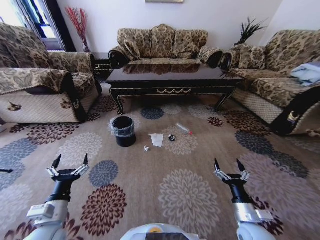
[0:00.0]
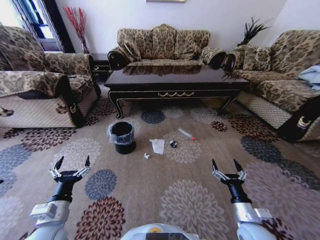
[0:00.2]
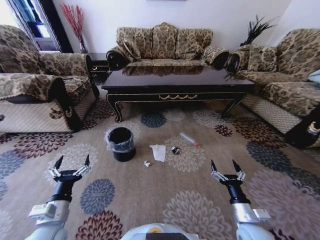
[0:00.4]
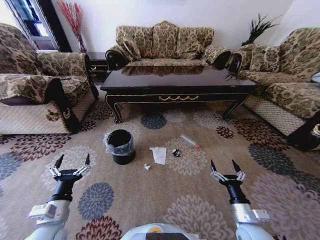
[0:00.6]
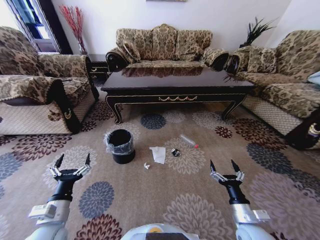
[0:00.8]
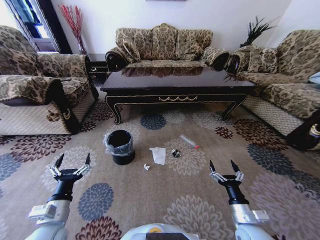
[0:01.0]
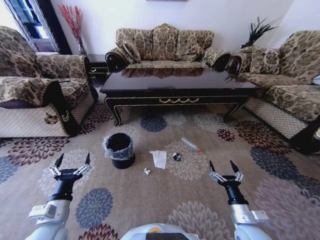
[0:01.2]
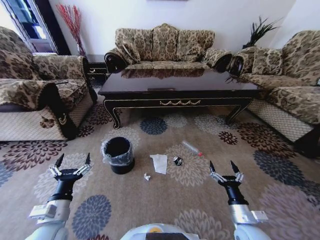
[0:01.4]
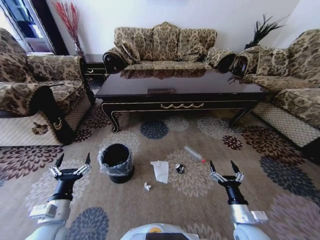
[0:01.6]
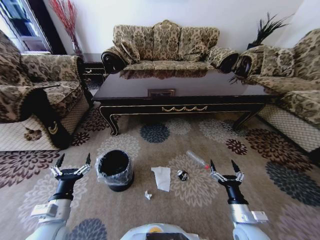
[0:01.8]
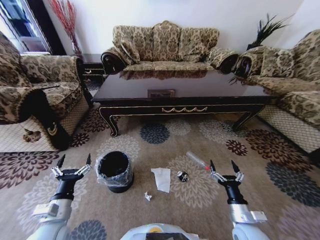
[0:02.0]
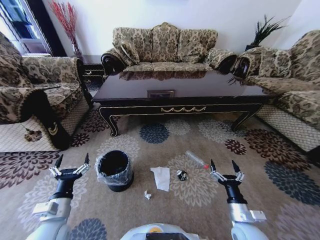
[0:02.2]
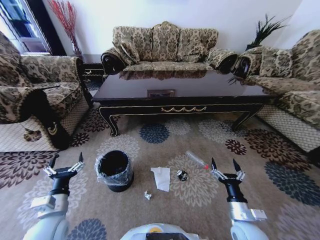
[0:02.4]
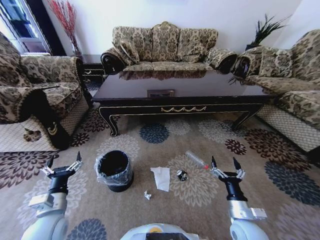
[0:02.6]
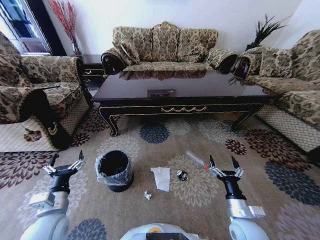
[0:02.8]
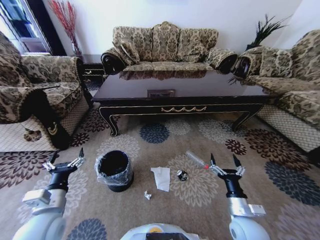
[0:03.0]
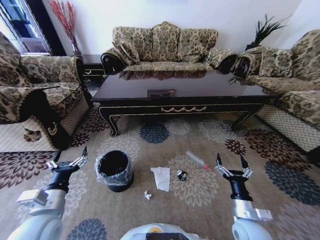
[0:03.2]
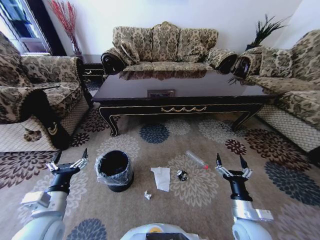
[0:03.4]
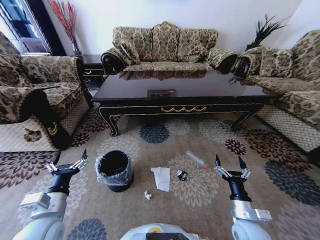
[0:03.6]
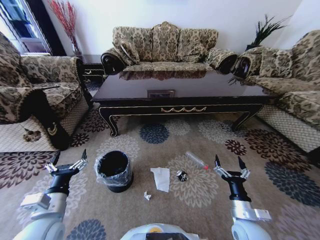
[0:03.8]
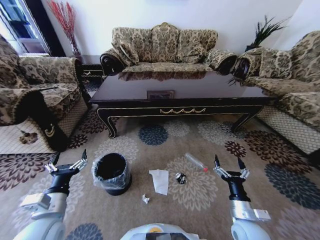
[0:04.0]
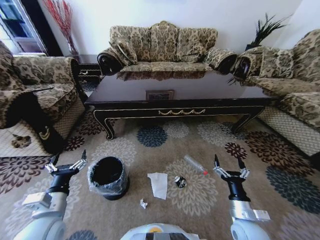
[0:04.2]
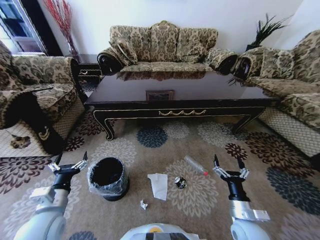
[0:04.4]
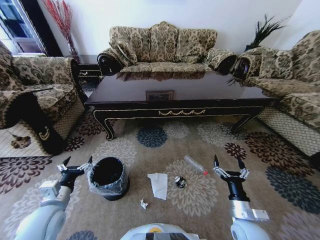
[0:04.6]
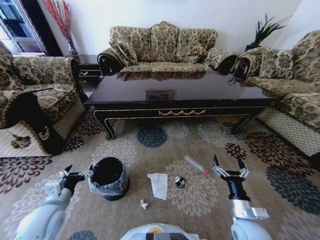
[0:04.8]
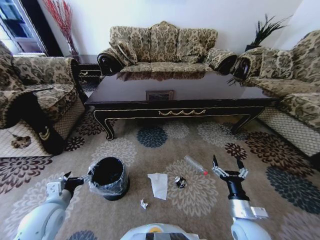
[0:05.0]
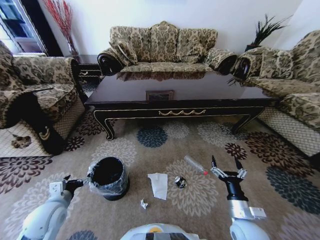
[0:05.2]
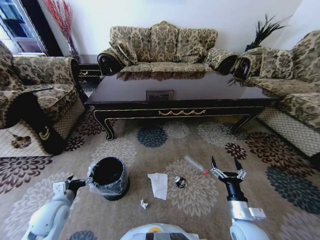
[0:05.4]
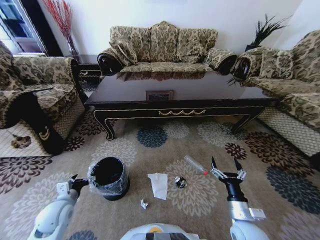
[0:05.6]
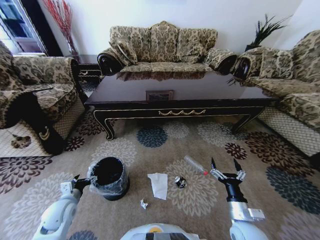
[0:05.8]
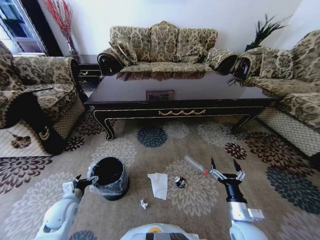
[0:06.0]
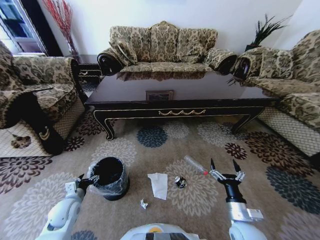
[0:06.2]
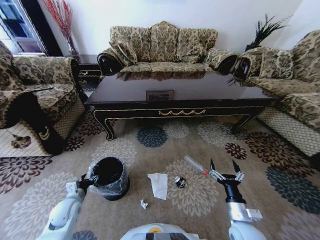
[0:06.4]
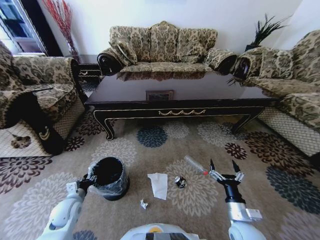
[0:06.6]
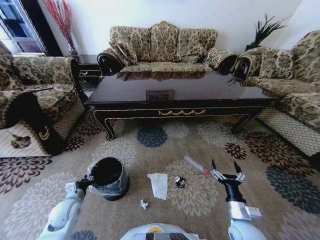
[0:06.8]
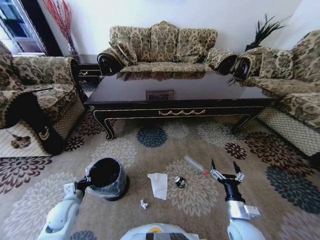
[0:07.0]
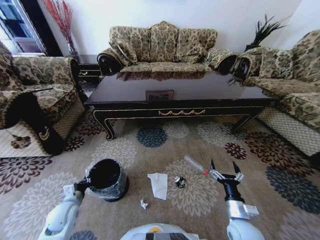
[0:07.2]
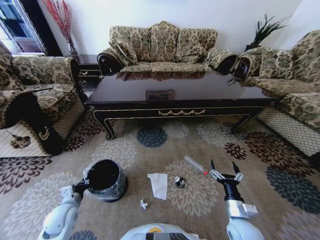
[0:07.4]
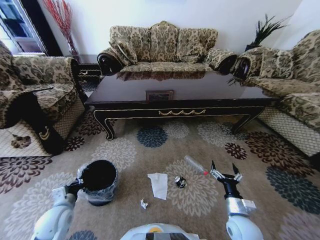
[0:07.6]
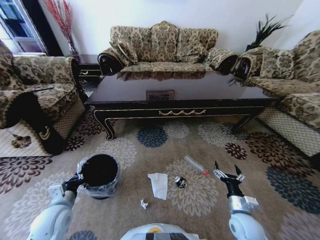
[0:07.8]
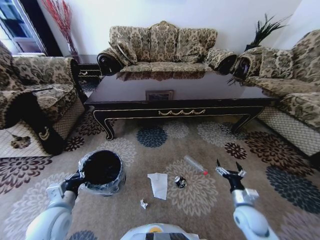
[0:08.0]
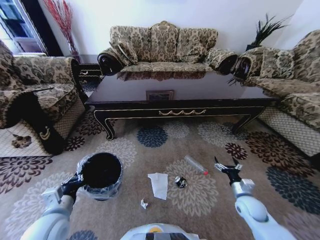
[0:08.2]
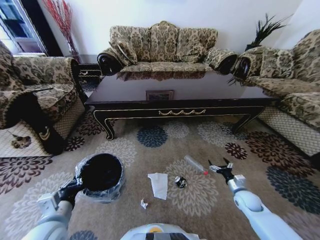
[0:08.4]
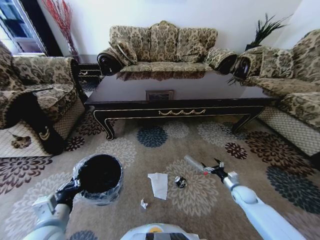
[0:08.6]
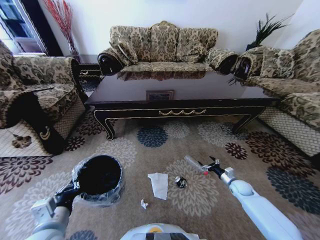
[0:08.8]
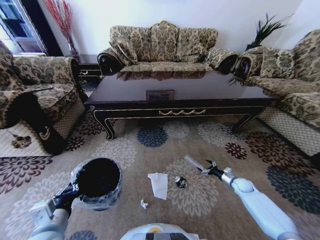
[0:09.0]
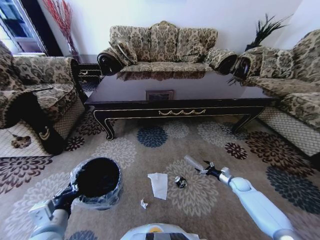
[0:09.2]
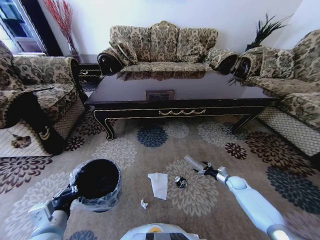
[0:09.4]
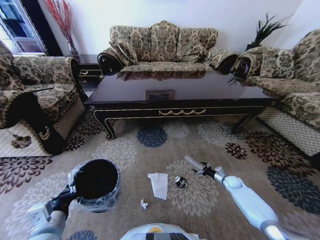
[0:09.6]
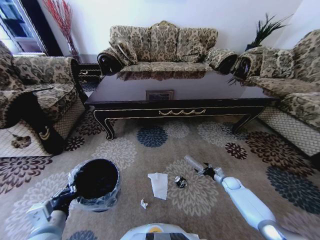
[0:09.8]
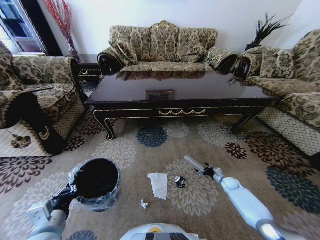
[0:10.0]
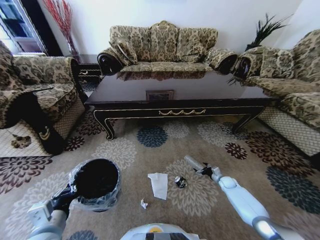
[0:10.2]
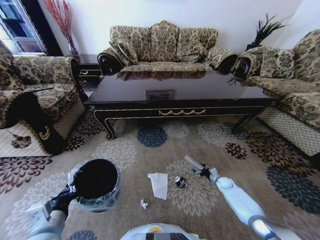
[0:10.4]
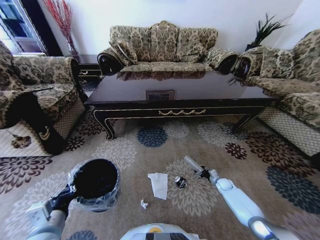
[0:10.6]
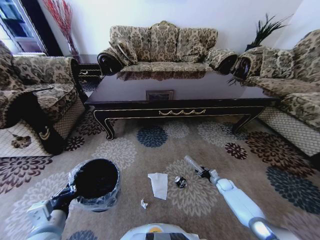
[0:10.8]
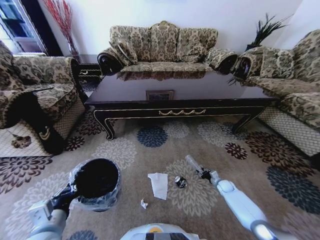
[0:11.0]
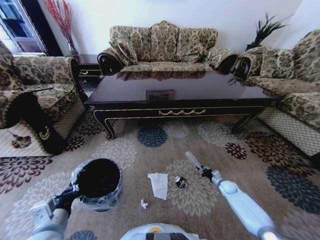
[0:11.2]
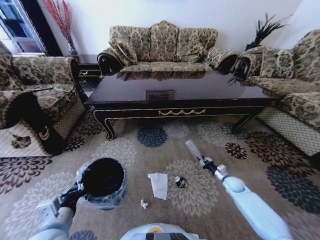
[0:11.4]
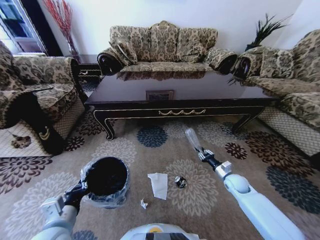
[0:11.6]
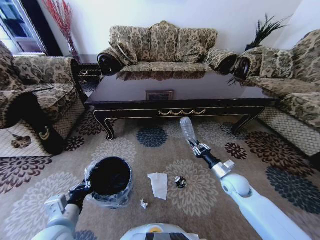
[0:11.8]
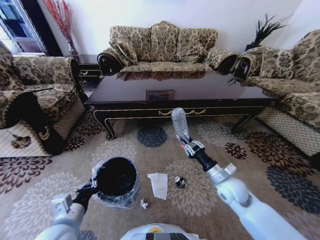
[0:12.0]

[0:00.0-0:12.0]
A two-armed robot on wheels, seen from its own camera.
Task of the whole recording: Move to the front of the table and pick up the trash from the floor, then place it into the trash bin.
0:04.4 to 0:06.0: The left gripper goes approximately 10 cm downward and forward.
0:06.0 to 0:07.6: The left gripper closes.
0:07.6 to 0:09.0: The left gripper is displaced upward, backward and to the right by some 15 cm. The right gripper heads forward, to the right and downward, covering approximately 30 cm.
0:09.0 to 0:10.4: The right gripper is displaced downward by about 5 cm.
0:10.4 to 0:12.0: The right gripper goes approximately 30 cm upward, to the left and backward, and closes its fingers.

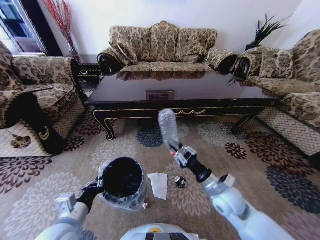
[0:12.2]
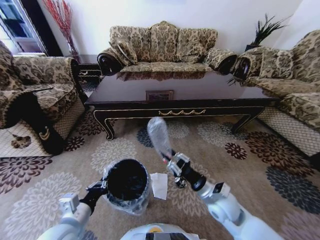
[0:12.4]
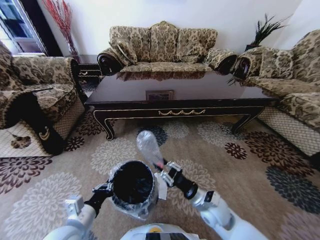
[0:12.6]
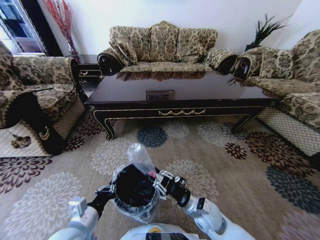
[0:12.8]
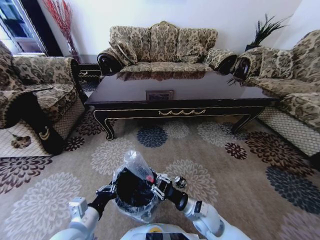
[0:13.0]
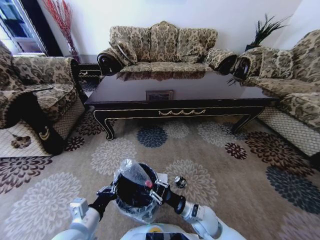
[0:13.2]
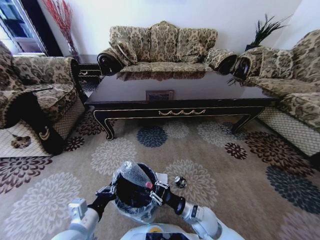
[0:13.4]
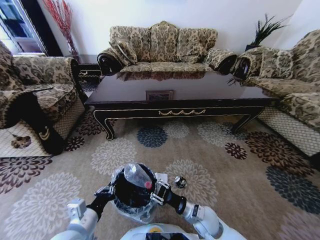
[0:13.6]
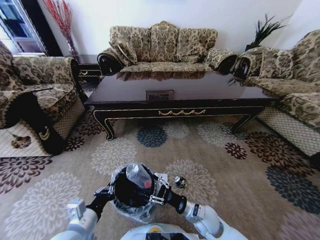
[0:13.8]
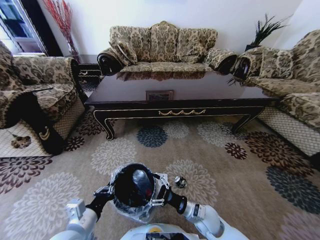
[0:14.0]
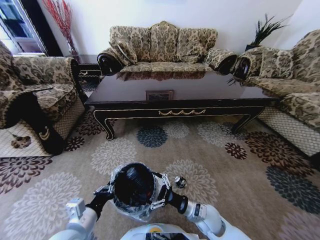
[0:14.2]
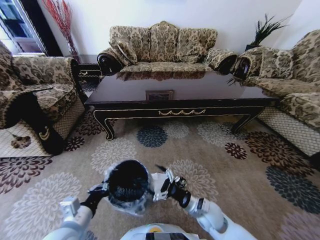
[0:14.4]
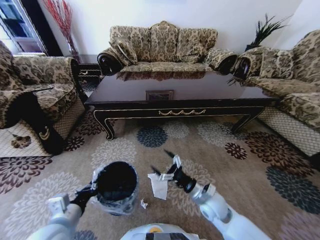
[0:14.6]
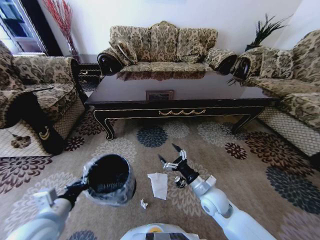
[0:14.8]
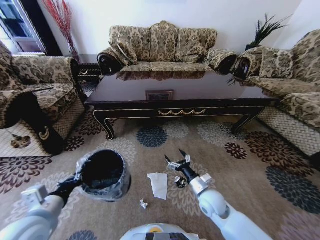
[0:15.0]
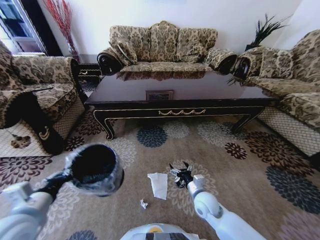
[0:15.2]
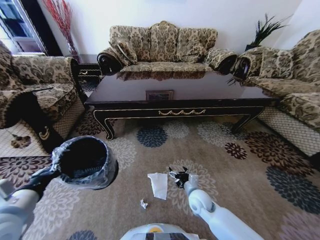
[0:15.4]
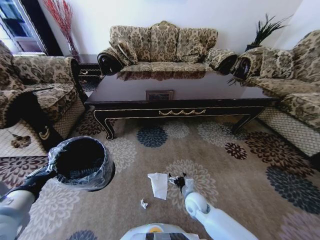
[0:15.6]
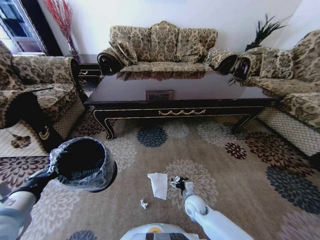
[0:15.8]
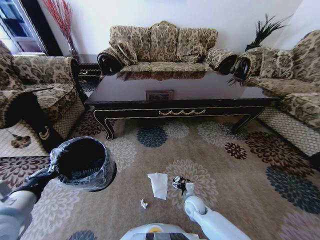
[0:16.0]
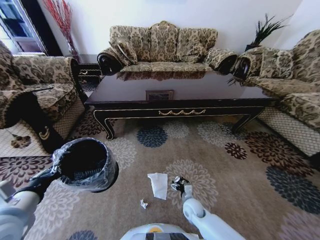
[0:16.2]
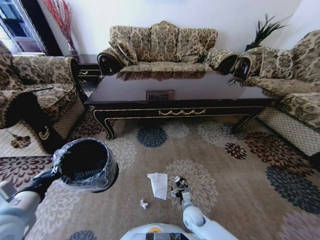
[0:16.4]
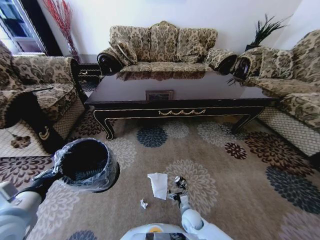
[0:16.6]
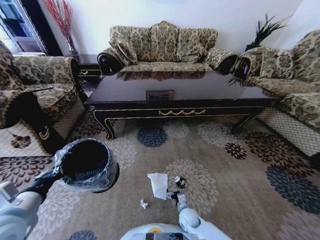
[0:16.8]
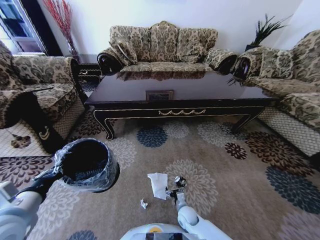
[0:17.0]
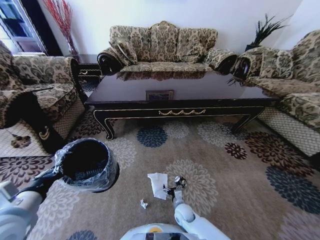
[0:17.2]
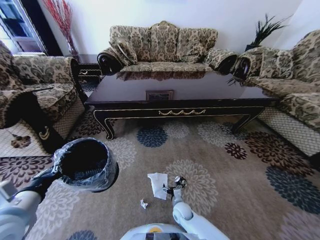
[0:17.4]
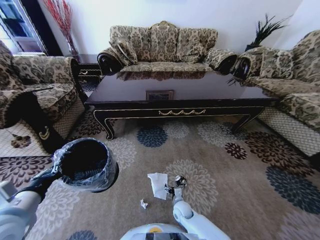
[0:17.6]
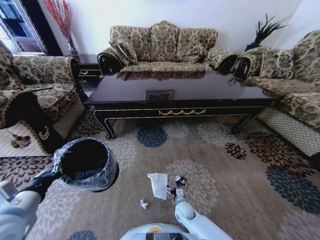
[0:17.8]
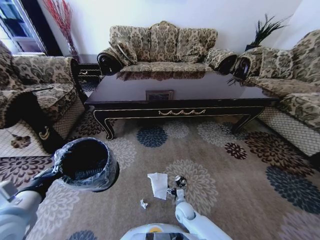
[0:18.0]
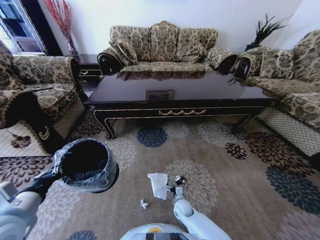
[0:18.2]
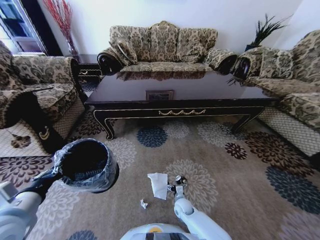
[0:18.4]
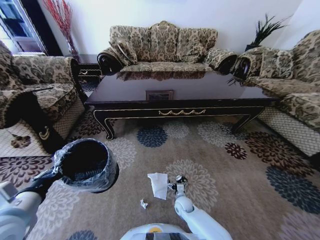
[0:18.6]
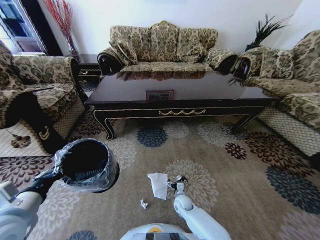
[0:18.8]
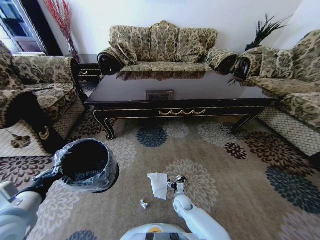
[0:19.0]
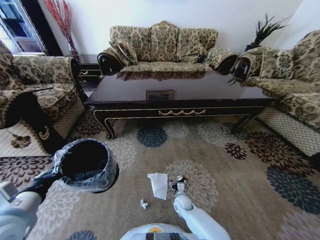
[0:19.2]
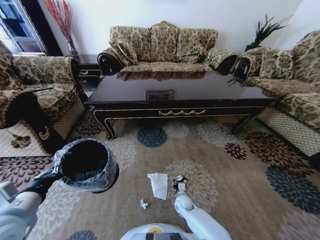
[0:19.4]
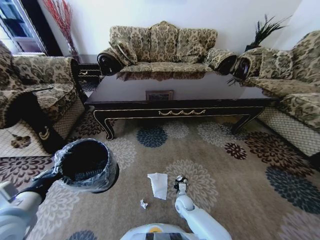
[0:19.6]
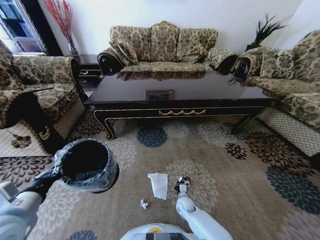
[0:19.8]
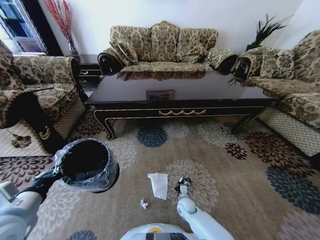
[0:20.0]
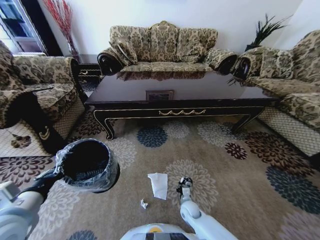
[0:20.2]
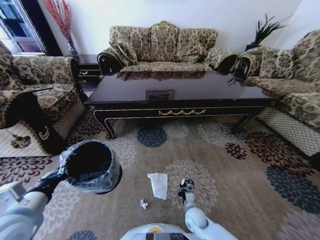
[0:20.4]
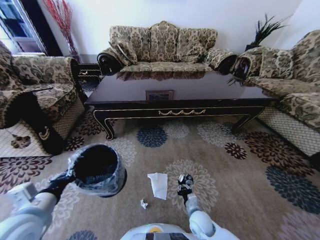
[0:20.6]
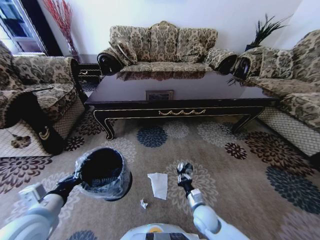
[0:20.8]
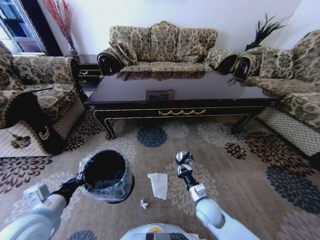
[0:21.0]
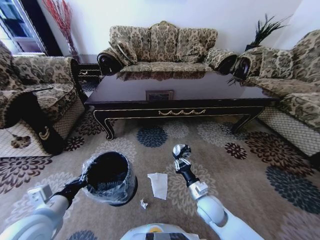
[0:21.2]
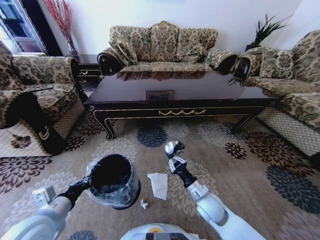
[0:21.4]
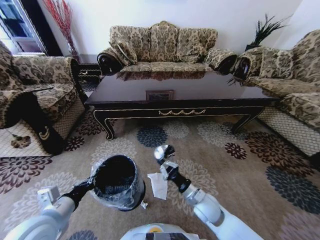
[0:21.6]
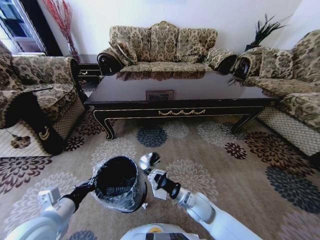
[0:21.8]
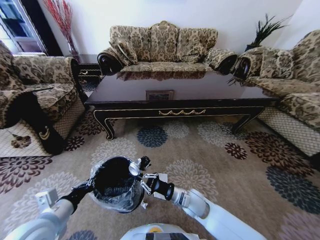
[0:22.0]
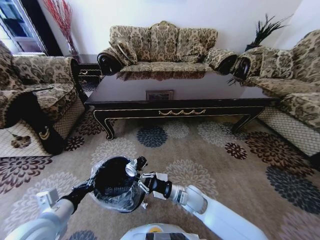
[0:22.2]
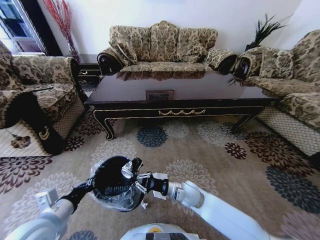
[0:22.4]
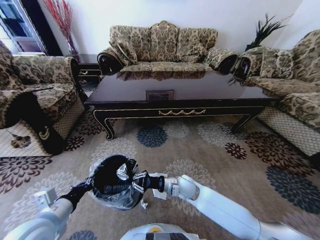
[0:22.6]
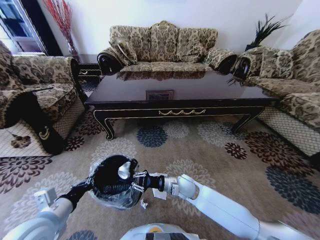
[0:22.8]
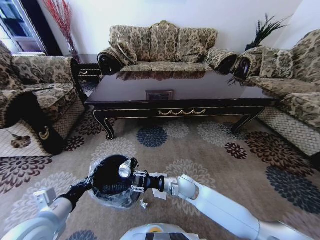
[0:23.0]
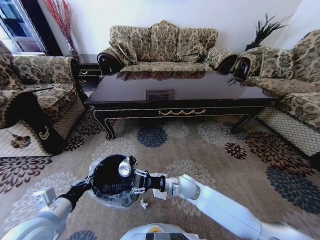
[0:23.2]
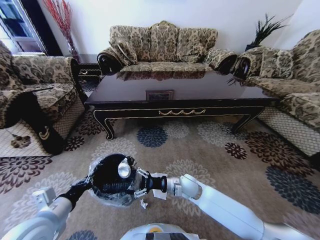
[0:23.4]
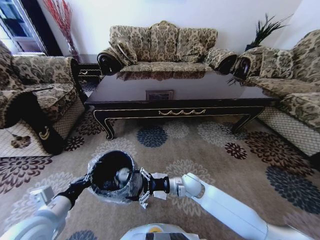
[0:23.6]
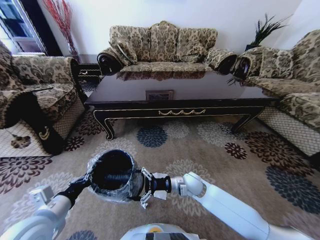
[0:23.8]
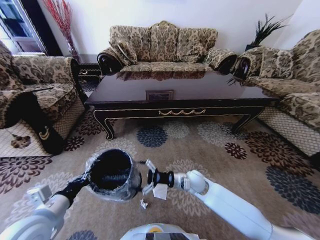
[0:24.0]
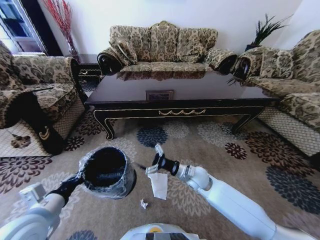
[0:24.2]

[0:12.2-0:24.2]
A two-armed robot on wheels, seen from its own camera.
Task of the whole recording: Move to the front of the table and pick up the trash from the floor, then place it into the trash bin.
0:12.2 to 0:13.8: The right gripper heads downward and to the left, covering approximately 15 cm.
0:13.8 to 0:15.2: The left gripper moves to the left and upward, some 10 cm. The right gripper opens its fingers.
0:15.2 to 0:16.6: The right gripper travels downward by approximately 15 cm.
0:16.6 to 0:18.2: The right gripper changes place by some 5 cm.
0:18.2 to 0:19.8: The right gripper closes its fingers.
0:19.8 to 0:21.2: The left gripper ends up some 5 cm from where it was; the right gripper heads upward, covering roughly 20 cm.
0:21.2 to 0:22.6: The right gripper heads to the left and forward, covering approximately 10 cm.
0:22.6 to 0:24.2: The right gripper moves to the right, roughly 5 cm, and opens.
